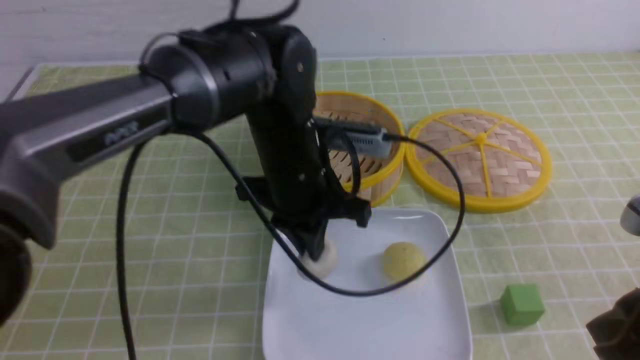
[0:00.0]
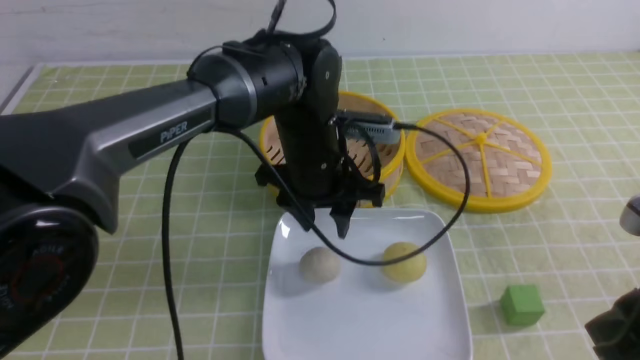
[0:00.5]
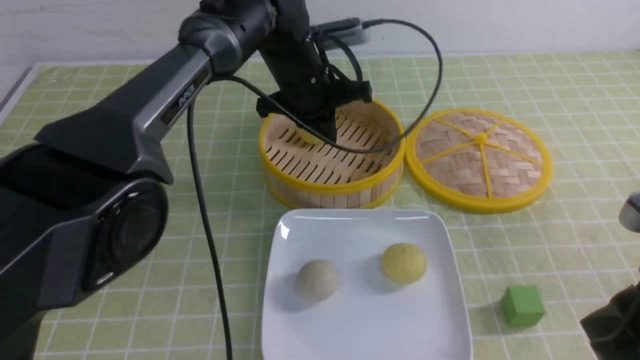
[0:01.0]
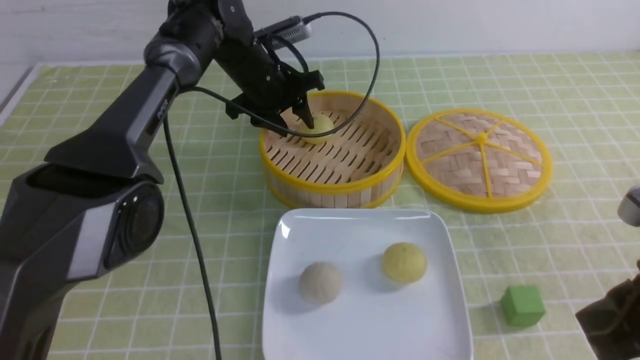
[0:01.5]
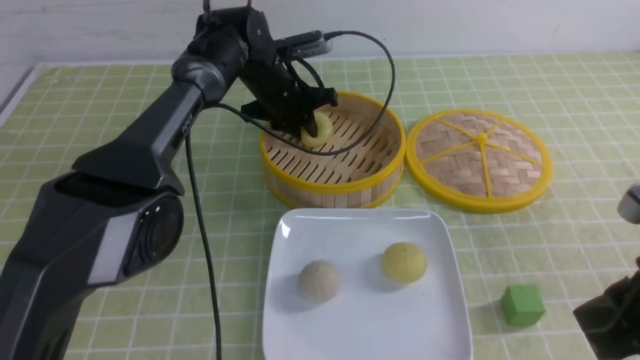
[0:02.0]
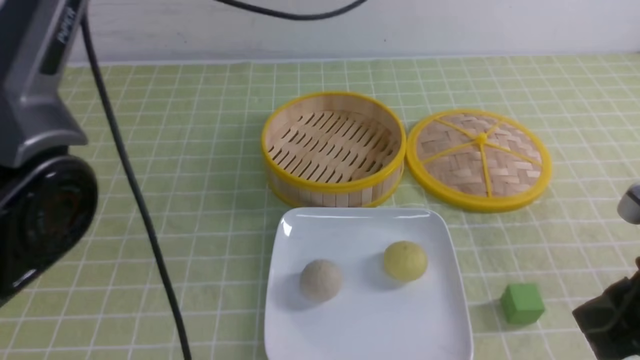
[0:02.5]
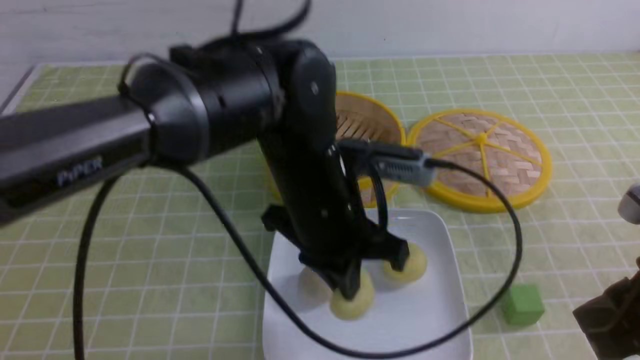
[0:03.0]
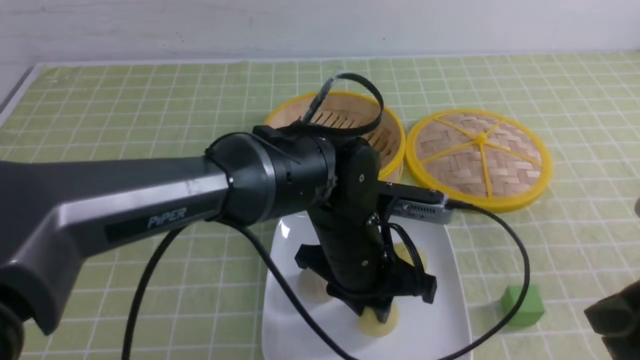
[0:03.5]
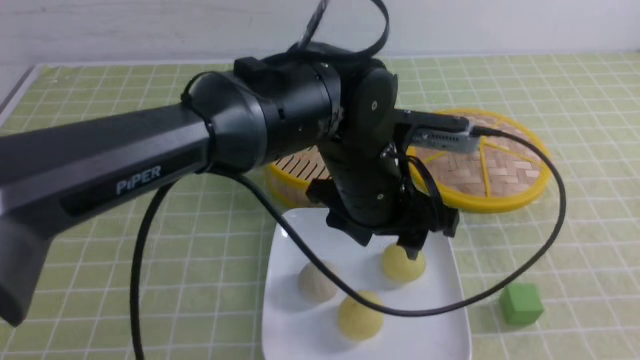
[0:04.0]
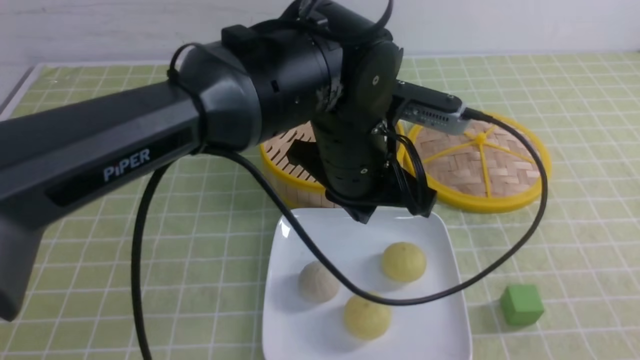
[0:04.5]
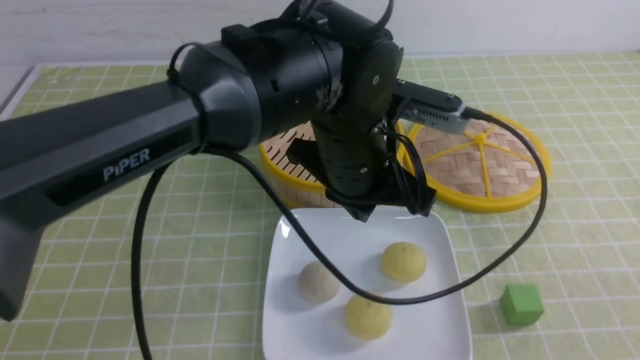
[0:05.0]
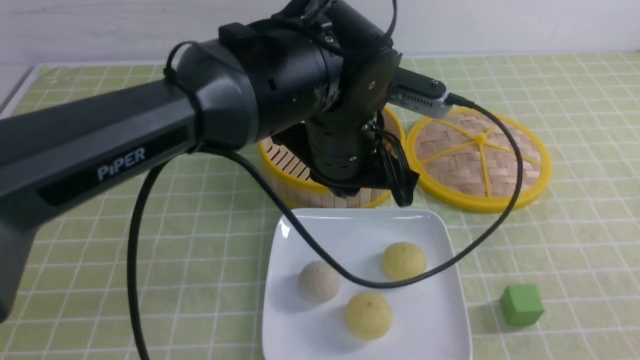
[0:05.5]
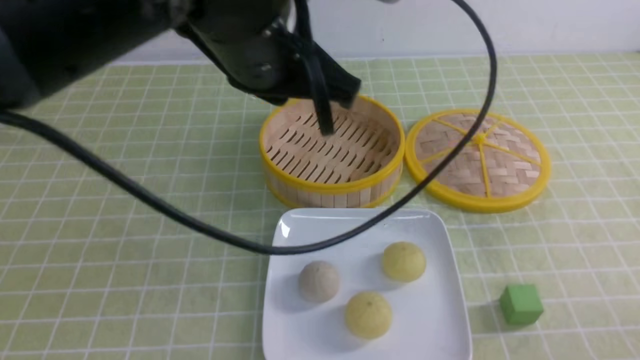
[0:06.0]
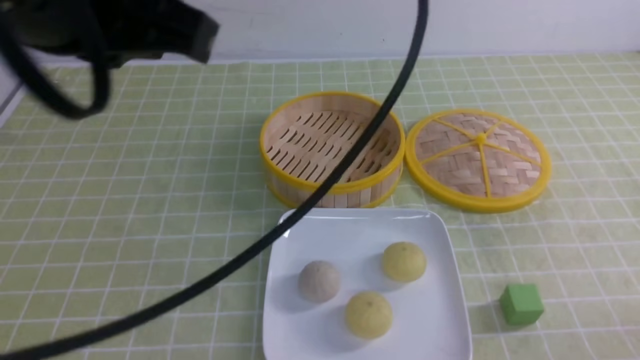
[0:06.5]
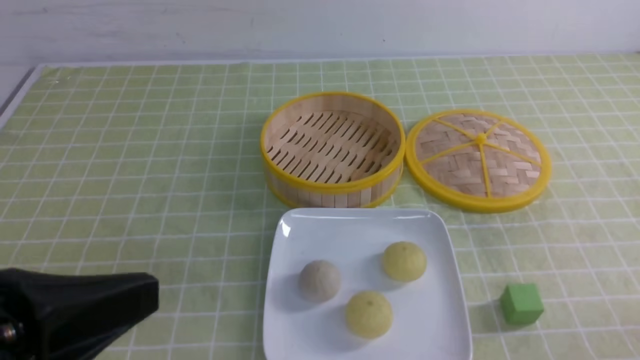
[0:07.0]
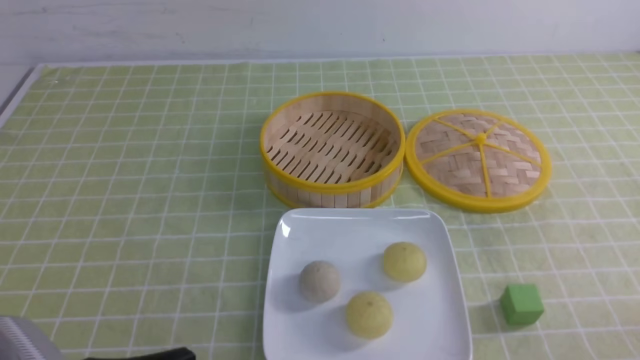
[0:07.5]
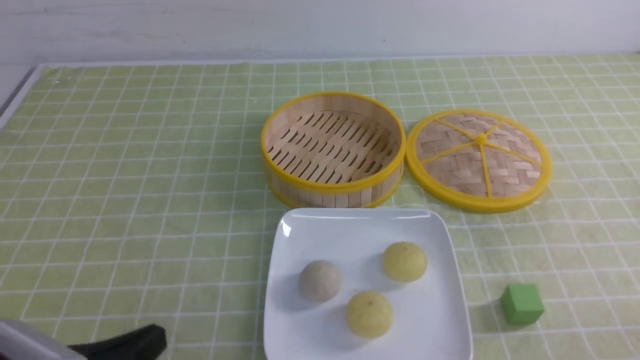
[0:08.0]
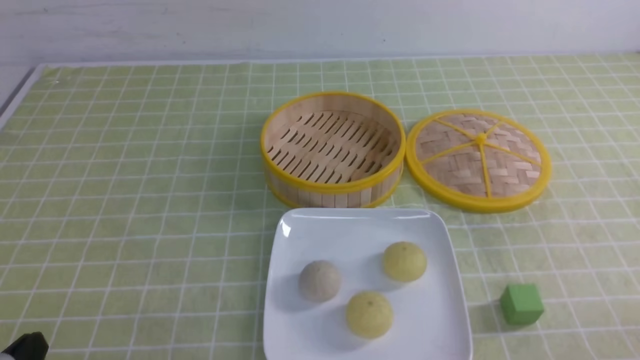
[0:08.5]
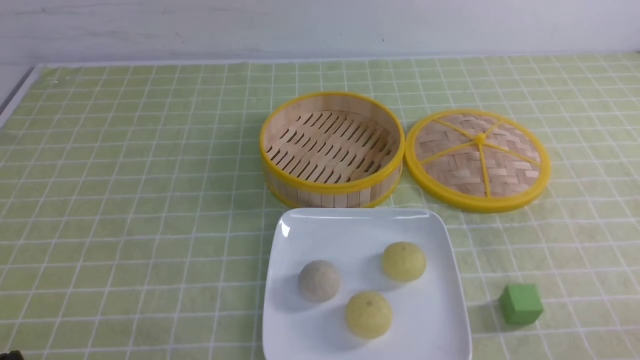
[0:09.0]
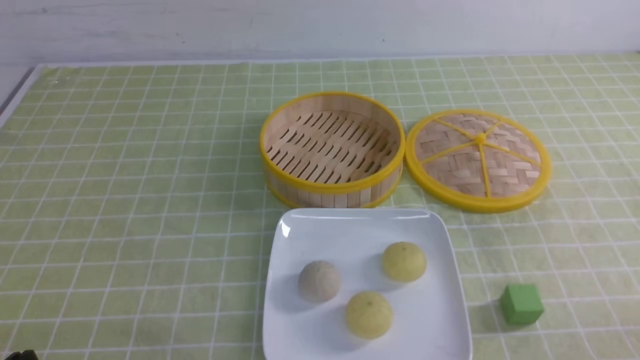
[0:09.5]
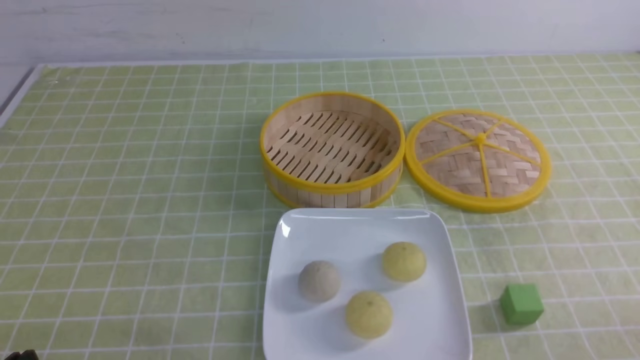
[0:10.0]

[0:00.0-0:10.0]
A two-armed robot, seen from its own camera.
Step, 0:00.5 to 0:02.0: use the left arm to grab the steamed stuffed bun that is closest to it.
Step, 0:02.5 to 0:03.5: use the left arm to put the steamed stuffed bun into the plate.
0:00.0 to 0:02.0: The left gripper travels forward by approximately 20 cm, and opens, then closes again.
0:02.0 to 0:04.0: The right gripper travels backward, to the right and upward by about 15 cm, while the left gripper heads backward, covering roughly 25 cm, and opens its fingers.
0:04.0 to 0:06.0: The right gripper goes roughly 15 cm downward. Meanwhile the left gripper shifts some 15 cm upward and to the left, and closes up.
0:06.0 to 0:08.0: The left gripper is displaced downward, backward and to the left by about 30 cm.
0:08.0 to 0:10.0: The left gripper moves about 5 cm.

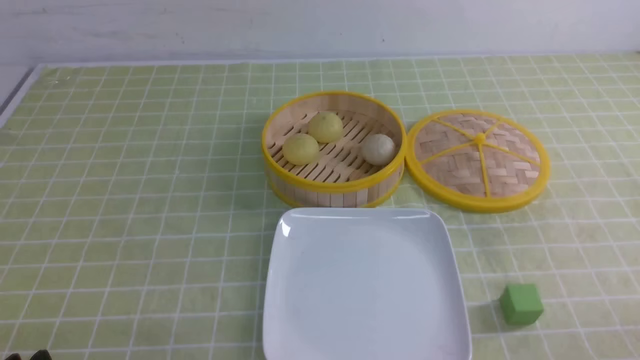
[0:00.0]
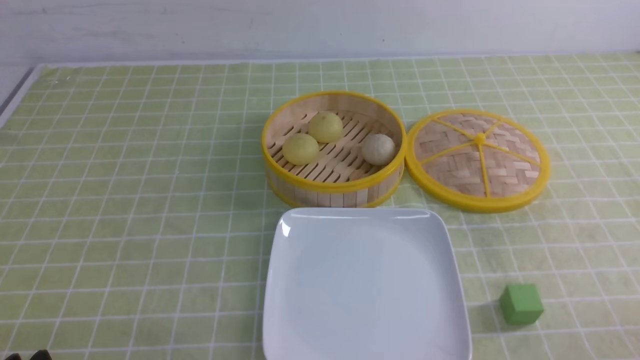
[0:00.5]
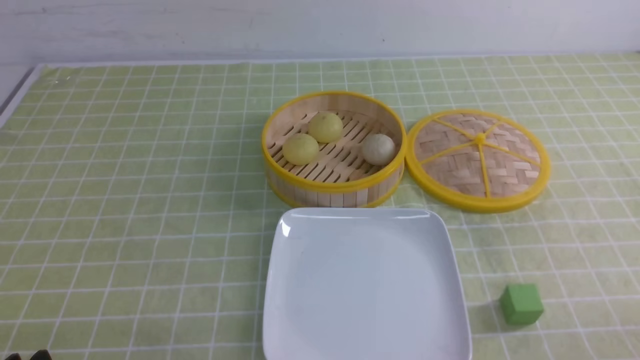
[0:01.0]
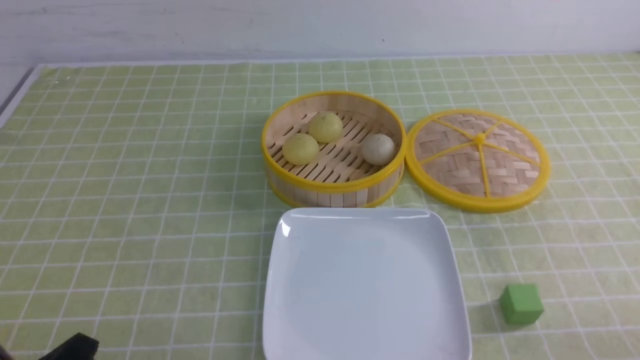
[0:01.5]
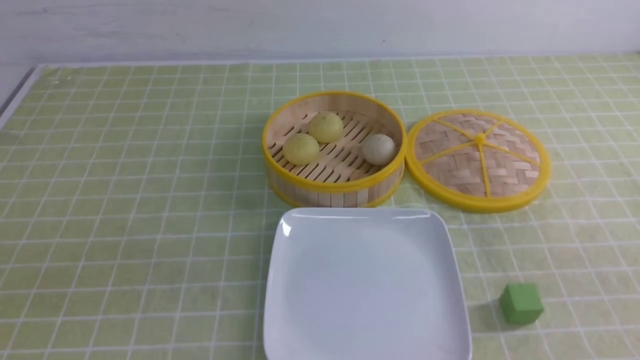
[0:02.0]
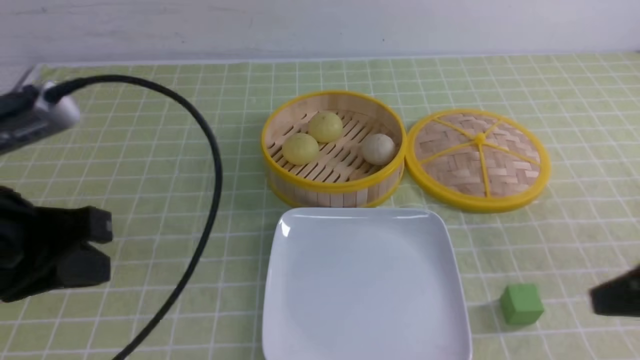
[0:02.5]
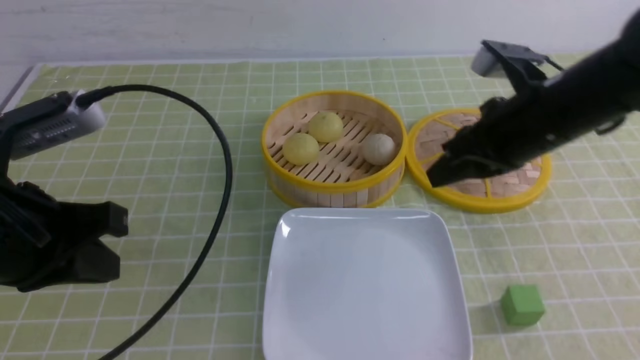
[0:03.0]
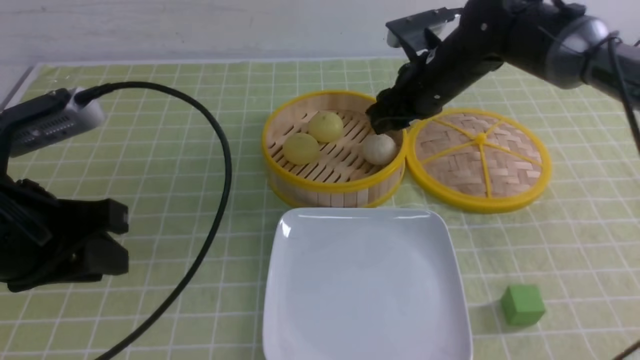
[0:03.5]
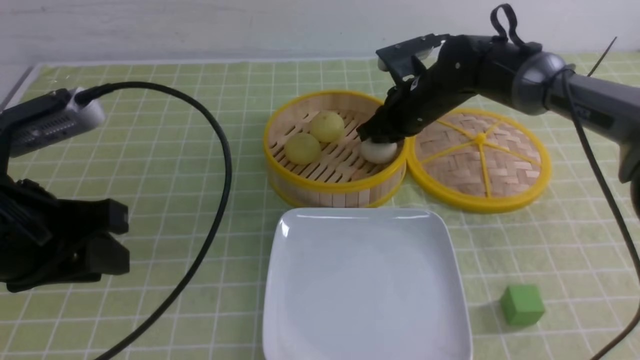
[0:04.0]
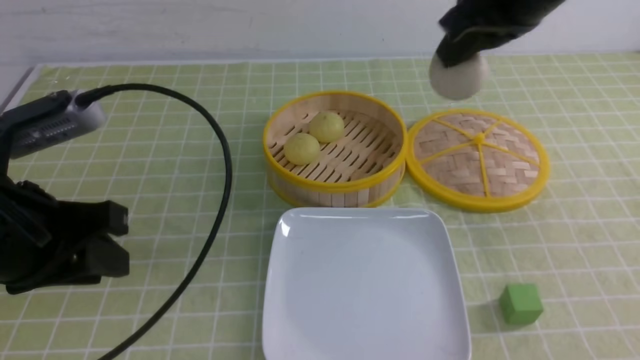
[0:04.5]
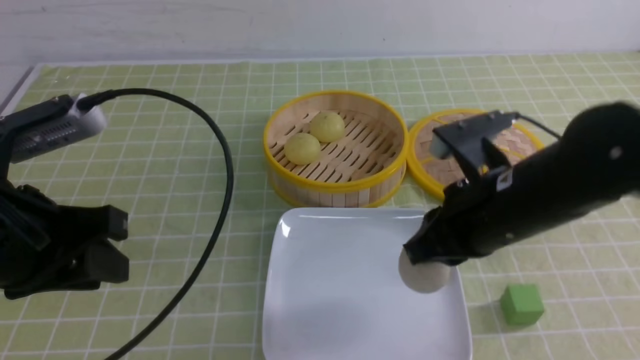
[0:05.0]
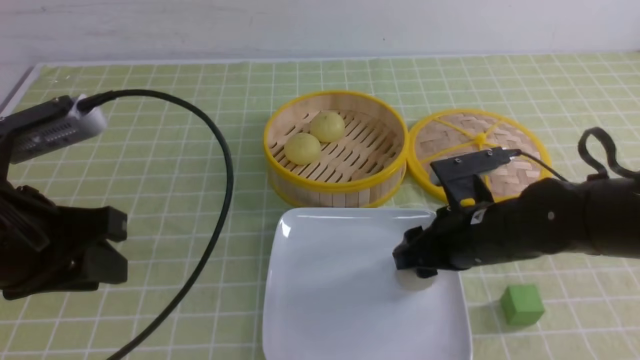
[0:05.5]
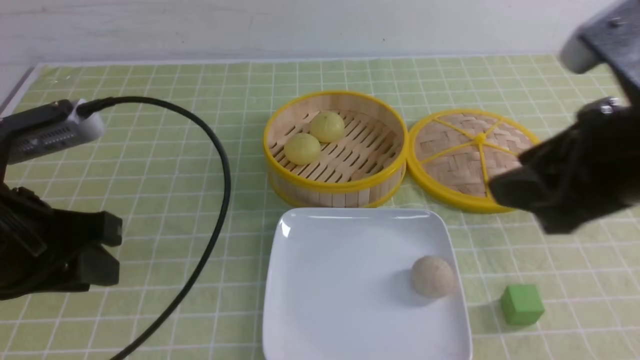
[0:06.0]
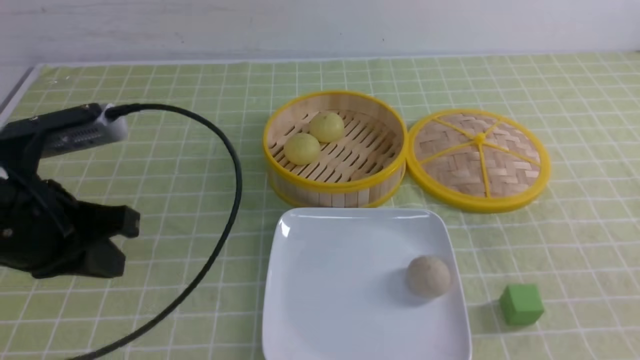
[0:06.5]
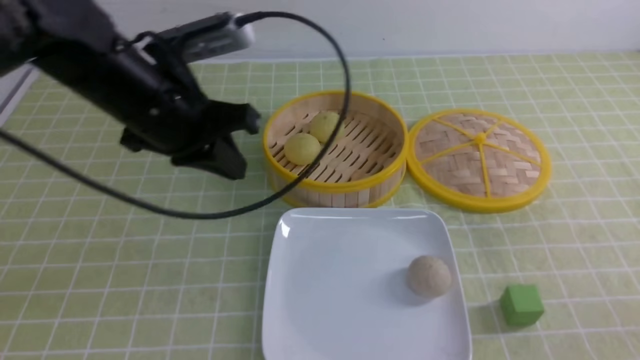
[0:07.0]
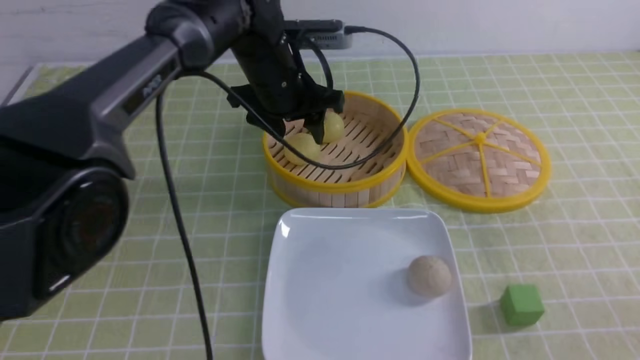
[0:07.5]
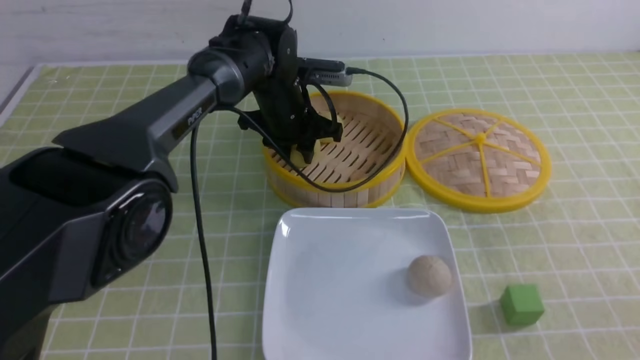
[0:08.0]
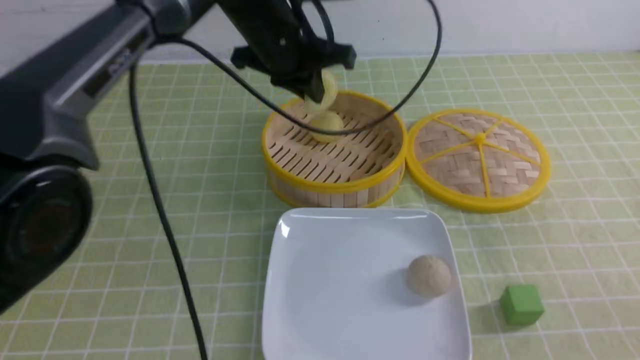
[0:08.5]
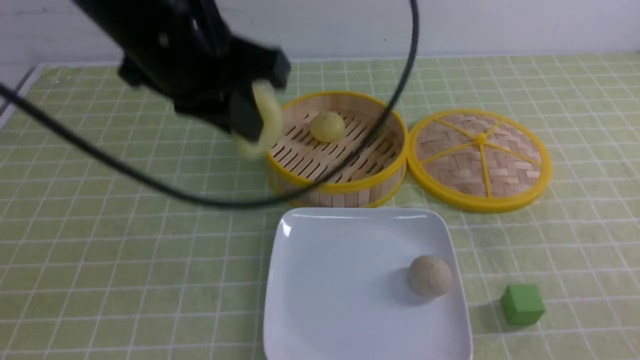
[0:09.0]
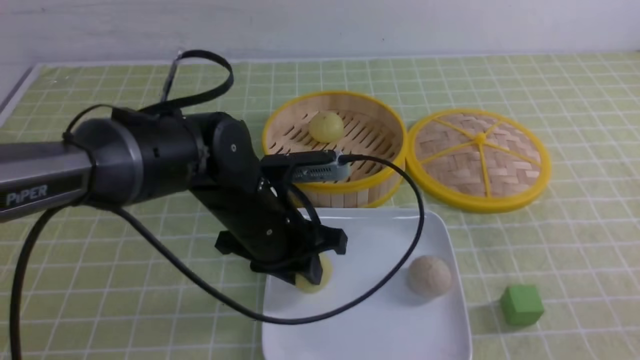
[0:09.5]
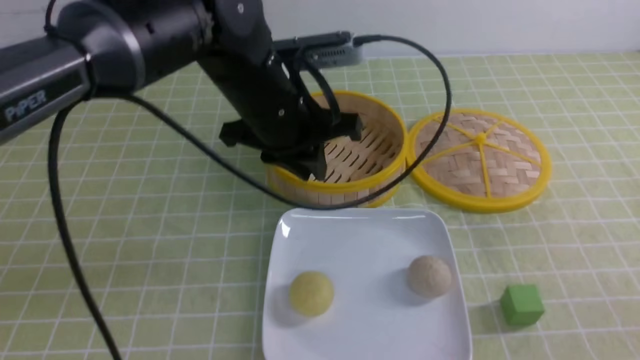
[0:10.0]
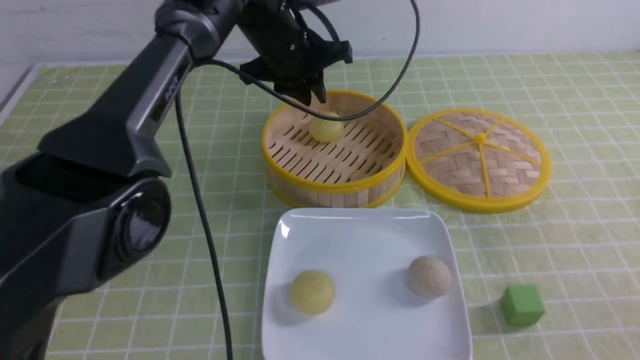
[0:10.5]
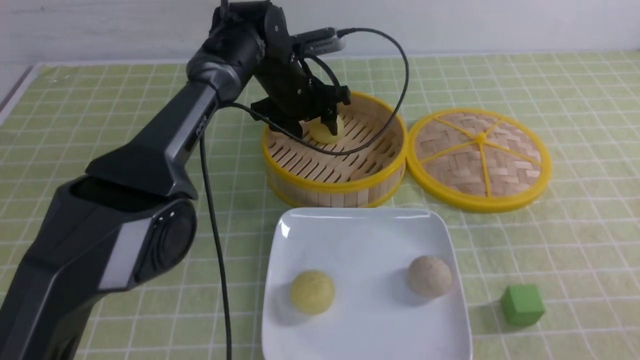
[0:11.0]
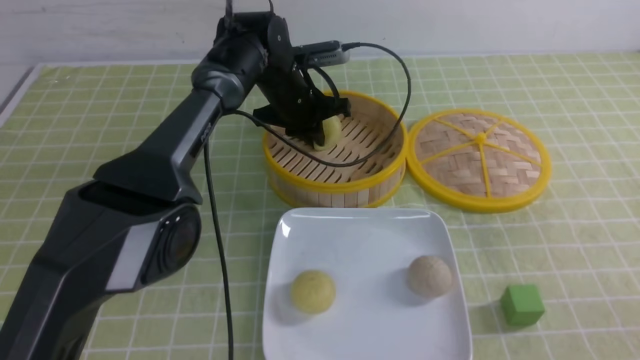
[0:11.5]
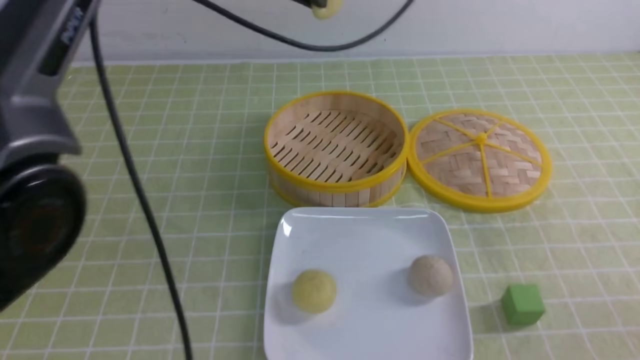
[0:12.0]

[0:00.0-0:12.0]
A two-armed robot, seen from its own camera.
Step, 0:00.0 to 0:03.5: use the right arm to grab the steamed stuffed bun that is closest to it.
Step, 0:04.0 to 0:05.5: use the right arm to put the steamed stuffed bun into the plate.
Step, 0:06.0 to 0:08.0: use the left arm to grab the steamed stuffed bun that is closest to it.
Step, 0:08.5 to 0:09.5: use the left arm to put the steamed stuffed bun into the plate.
Step, 0:10.0 to 0:11.5: use the left arm to grab the steamed stuffed bun that is closest to it.
0:02.0 to 0:04.0: The left gripper heads forward, covering about 15 cm, and opens up. Meanwhile the right gripper moves forward and to the left, roughly 50 cm, and opens, then closes again.
0:04.0 to 0:06.0: The right gripper heads backward and upward, covering roughly 30 cm, and opens its fingers.
0:06.0 to 0:08.0: The left gripper heads forward and to the right, covering about 35 cm, and closes, then reopens. Meanwhile the right gripper travels backward, to the right and downward by roughly 15 cm, and closes.
0:08.0 to 0:10.0: The left gripper travels backward and upward by about 15 cm.
0:10.0 to 0:12.0: The left gripper is displaced upward by about 10 cm, and opens, then closes again.
